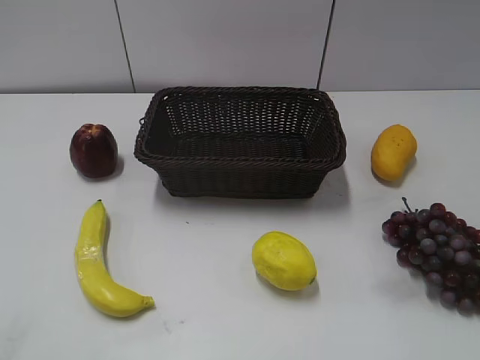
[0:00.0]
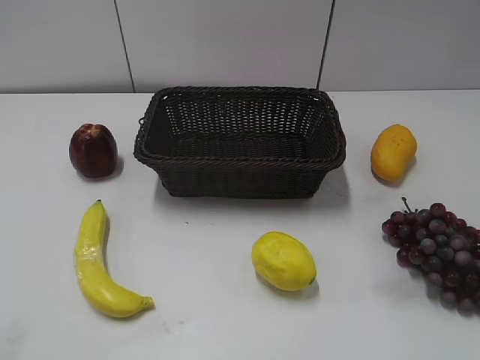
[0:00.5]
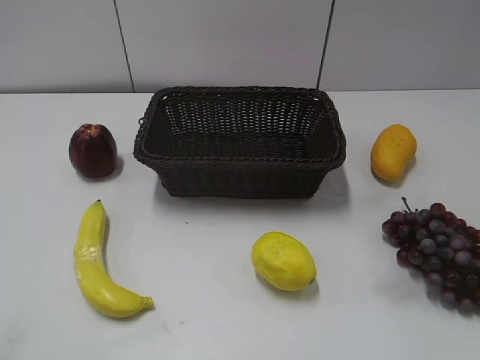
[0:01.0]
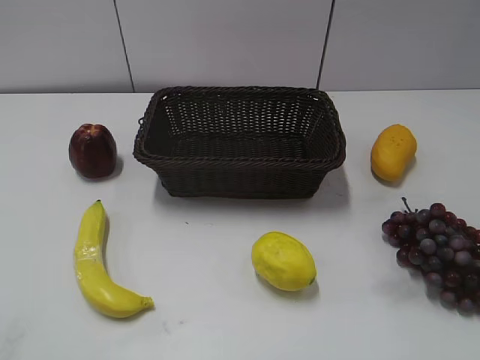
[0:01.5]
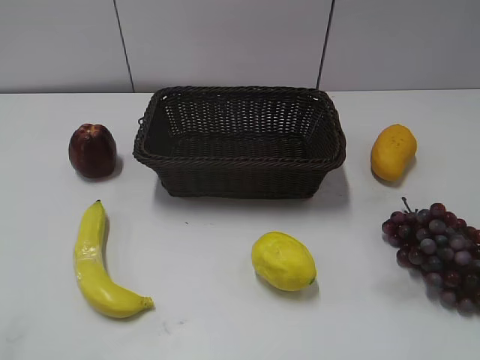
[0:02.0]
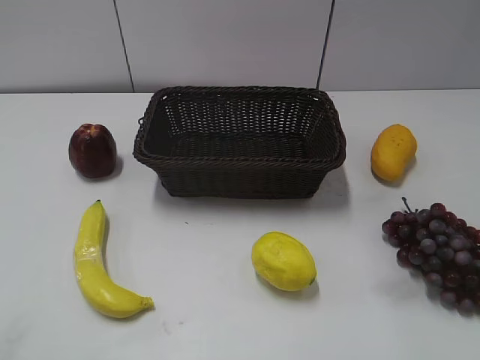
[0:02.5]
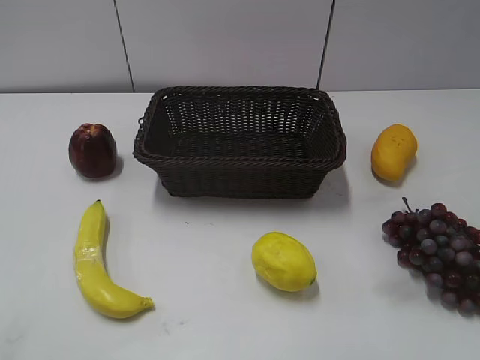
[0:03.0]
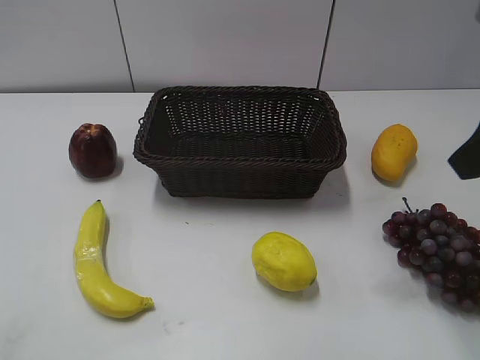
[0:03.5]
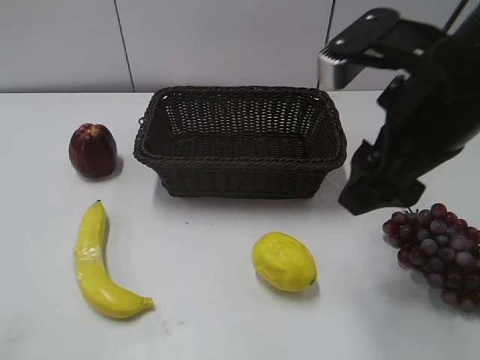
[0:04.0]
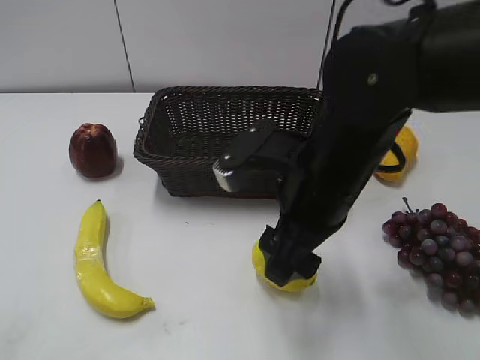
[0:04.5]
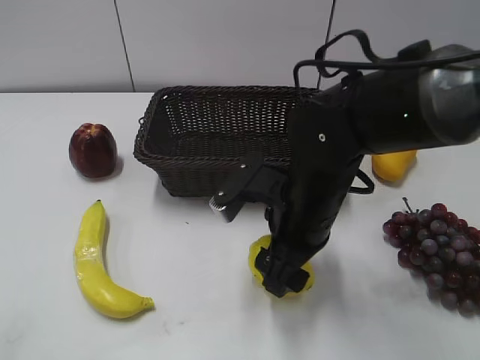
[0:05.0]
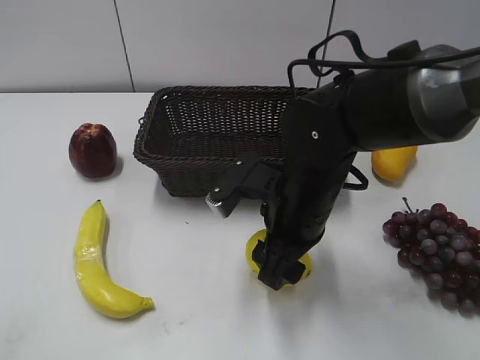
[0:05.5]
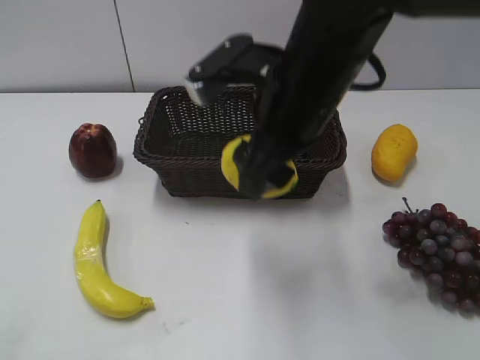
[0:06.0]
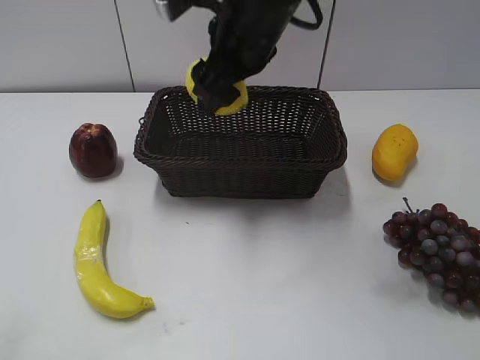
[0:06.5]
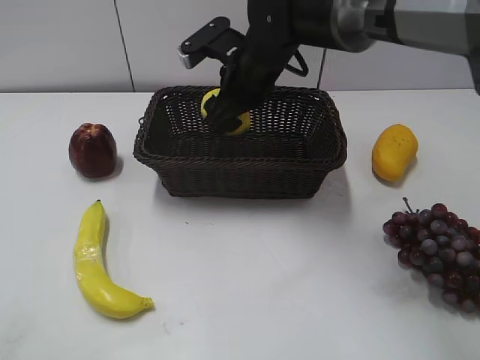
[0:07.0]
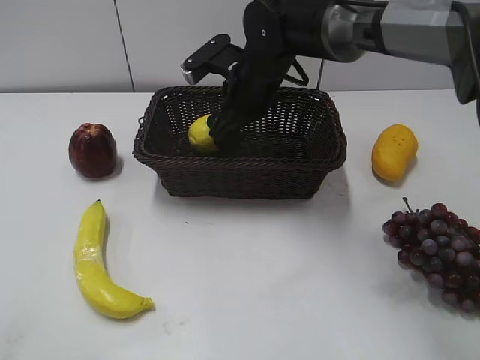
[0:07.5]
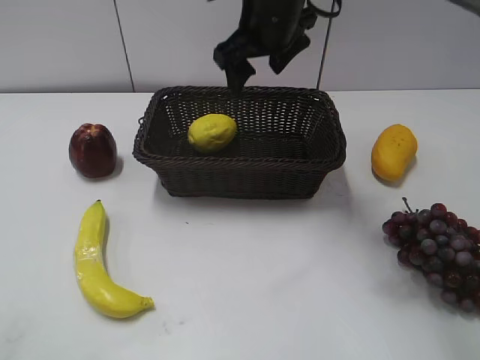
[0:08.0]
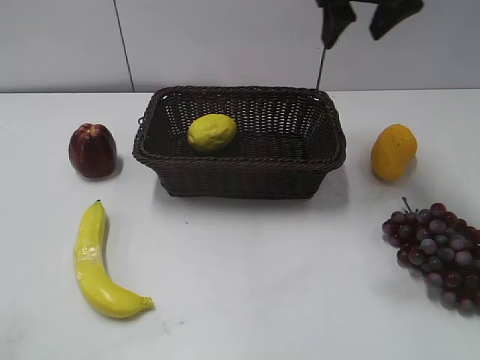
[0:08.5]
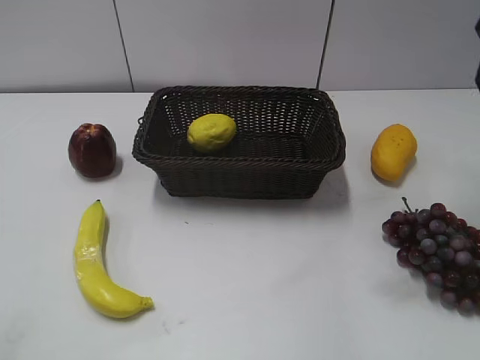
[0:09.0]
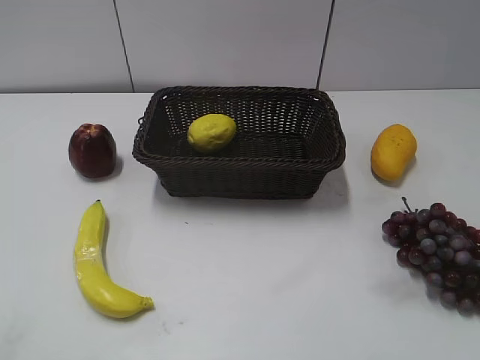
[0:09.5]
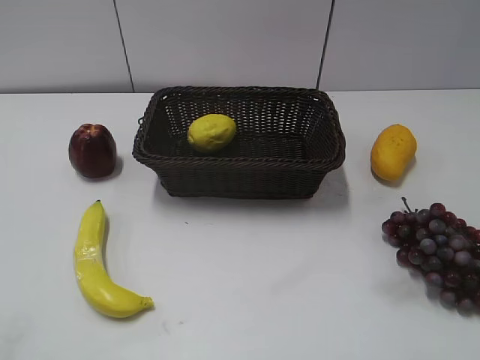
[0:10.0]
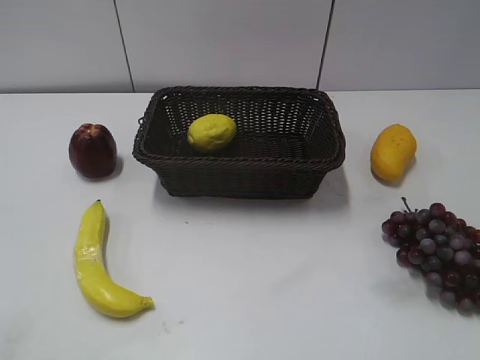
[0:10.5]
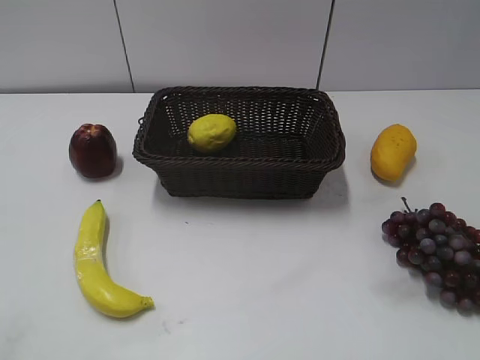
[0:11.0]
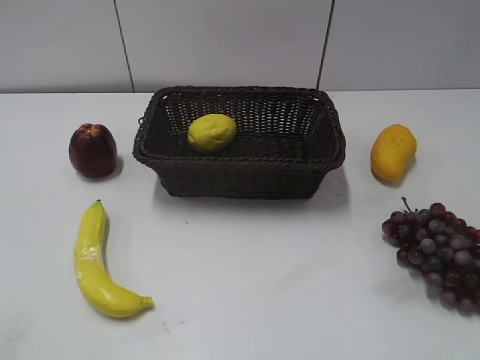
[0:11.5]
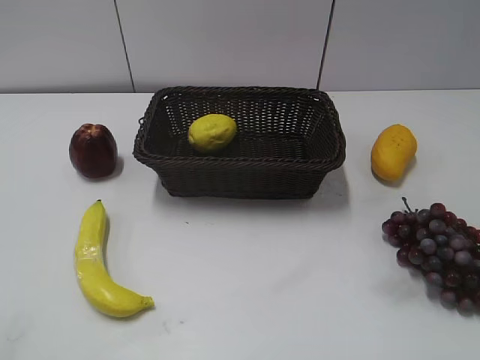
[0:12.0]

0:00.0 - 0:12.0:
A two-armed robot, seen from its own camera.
Step, 0:03.5 - 0:05.5: Grasp the lemon with right gripper.
Step, 0:06.0 - 0:07.5: Place the lemon in the basket with right gripper.
0:02.0 - 0:04.0: The right gripper goes approximately 25 cm forward and to the left.
0:04.0 - 0:06.0: The right gripper heads to the left, covering roughly 10 cm, reaches about 15 cm downward, then returns, and closes its fingers.
0:06.0 - 0:08.0: The right gripper travels forward by roughly 15 cm, and opens.
0:08.0 - 0:10.0: The right gripper moves backward and to the right, approximately 40 cm, and closes.
